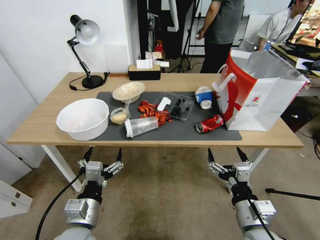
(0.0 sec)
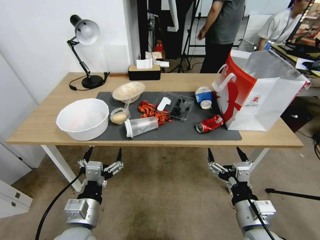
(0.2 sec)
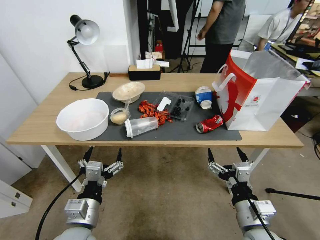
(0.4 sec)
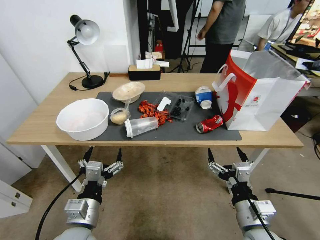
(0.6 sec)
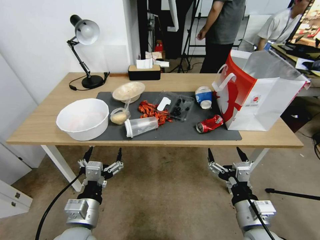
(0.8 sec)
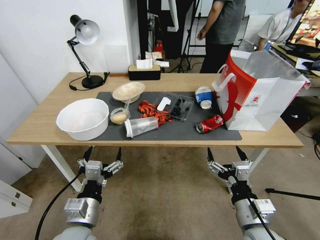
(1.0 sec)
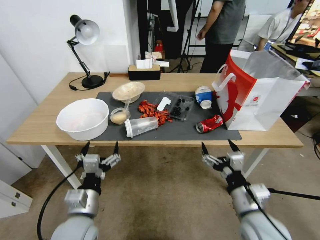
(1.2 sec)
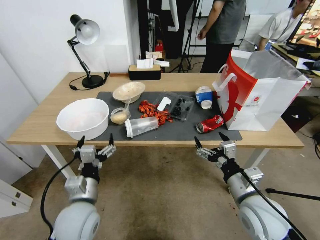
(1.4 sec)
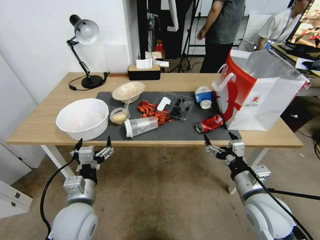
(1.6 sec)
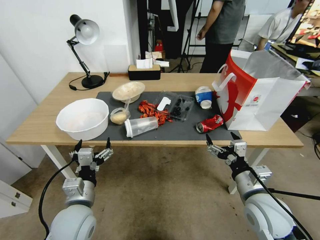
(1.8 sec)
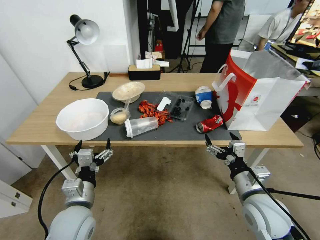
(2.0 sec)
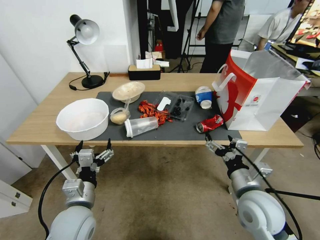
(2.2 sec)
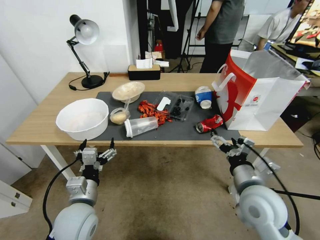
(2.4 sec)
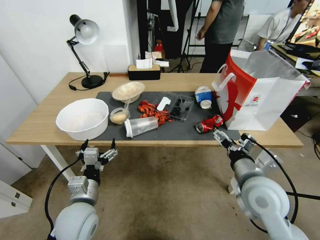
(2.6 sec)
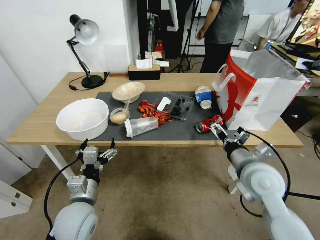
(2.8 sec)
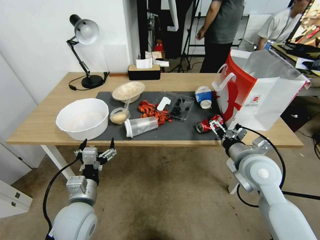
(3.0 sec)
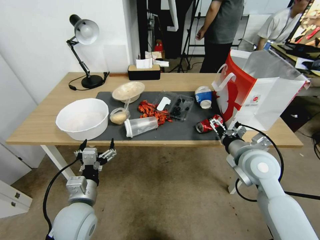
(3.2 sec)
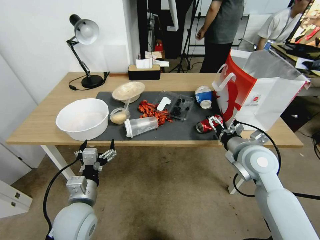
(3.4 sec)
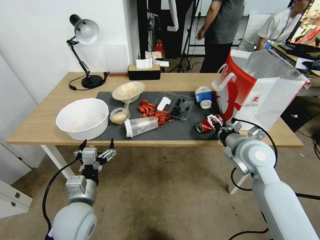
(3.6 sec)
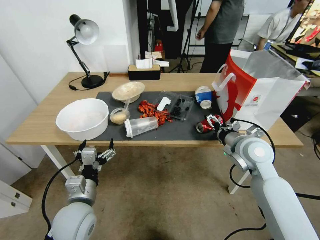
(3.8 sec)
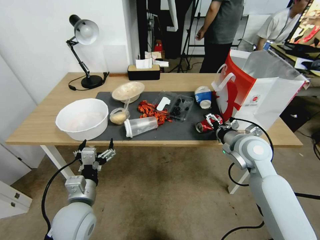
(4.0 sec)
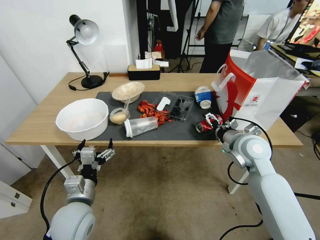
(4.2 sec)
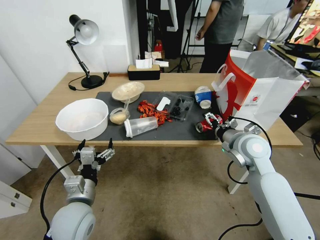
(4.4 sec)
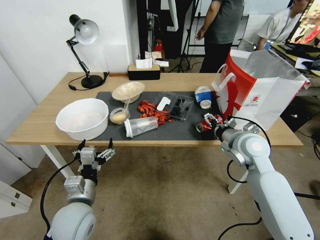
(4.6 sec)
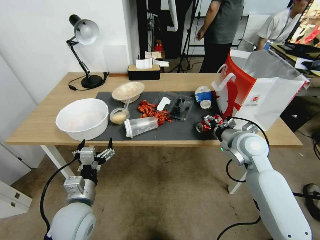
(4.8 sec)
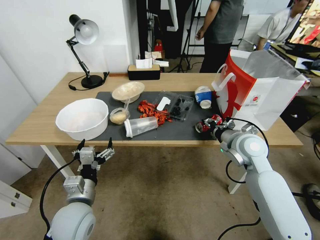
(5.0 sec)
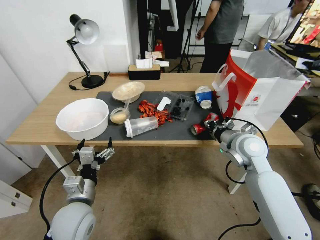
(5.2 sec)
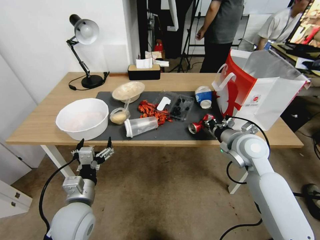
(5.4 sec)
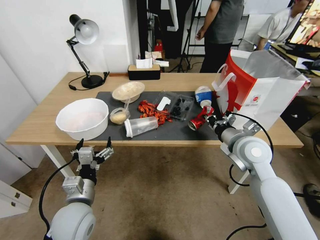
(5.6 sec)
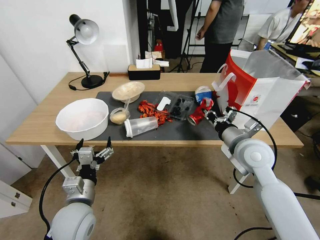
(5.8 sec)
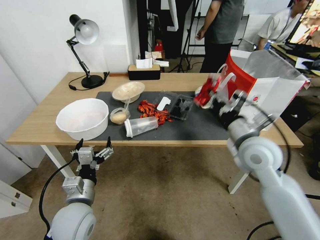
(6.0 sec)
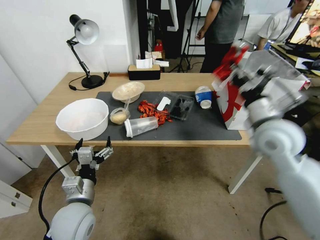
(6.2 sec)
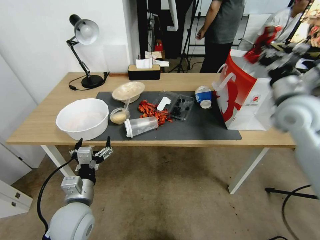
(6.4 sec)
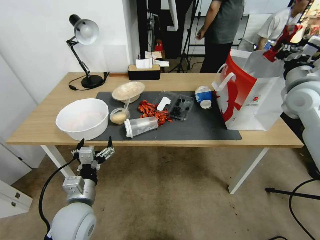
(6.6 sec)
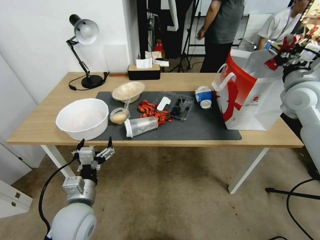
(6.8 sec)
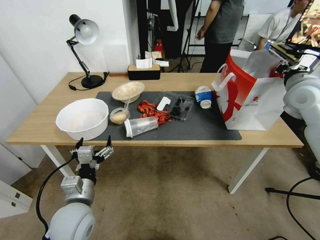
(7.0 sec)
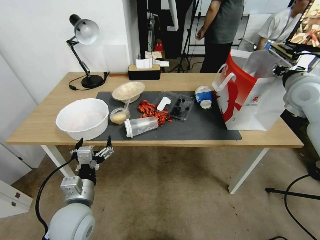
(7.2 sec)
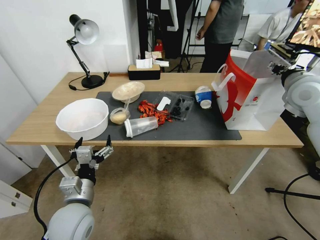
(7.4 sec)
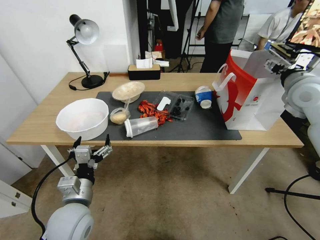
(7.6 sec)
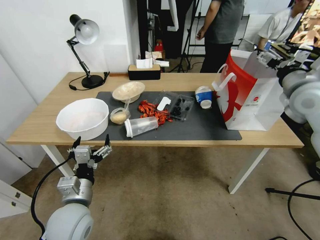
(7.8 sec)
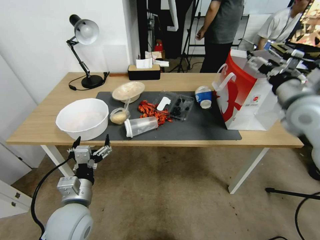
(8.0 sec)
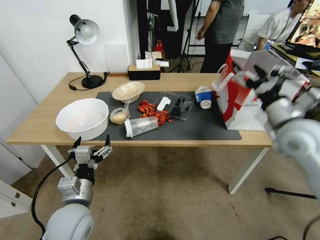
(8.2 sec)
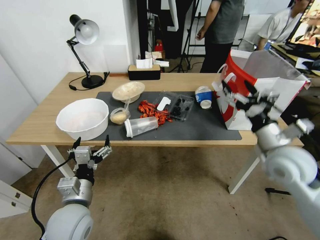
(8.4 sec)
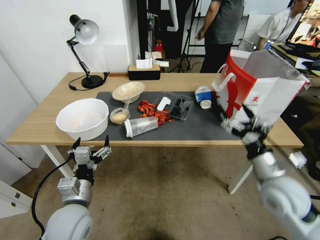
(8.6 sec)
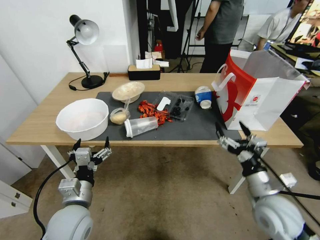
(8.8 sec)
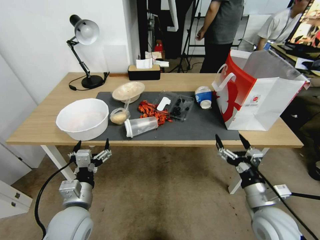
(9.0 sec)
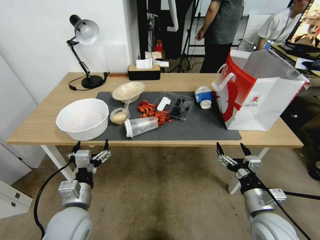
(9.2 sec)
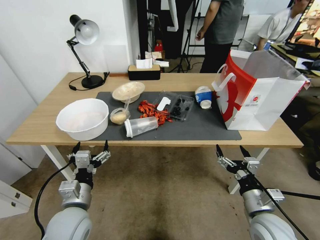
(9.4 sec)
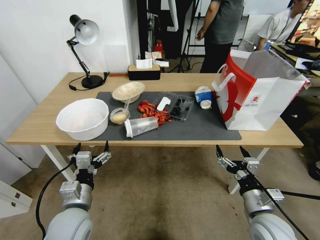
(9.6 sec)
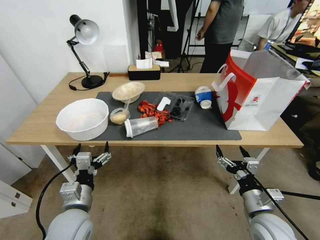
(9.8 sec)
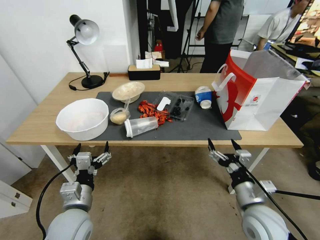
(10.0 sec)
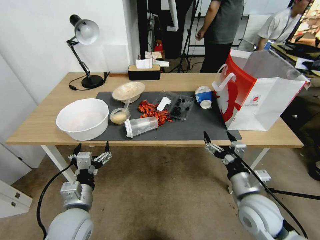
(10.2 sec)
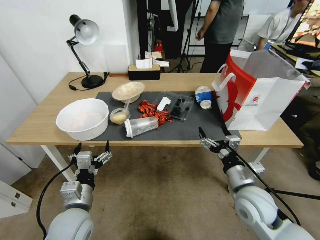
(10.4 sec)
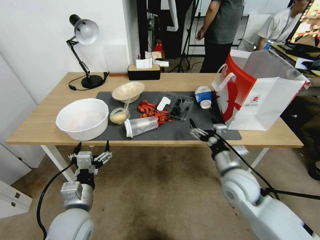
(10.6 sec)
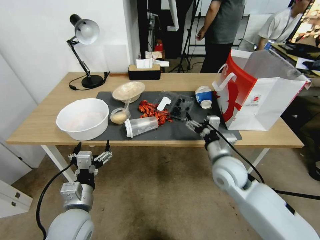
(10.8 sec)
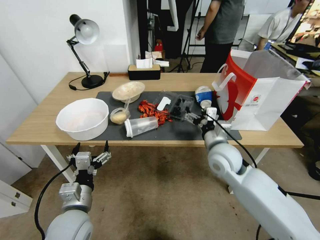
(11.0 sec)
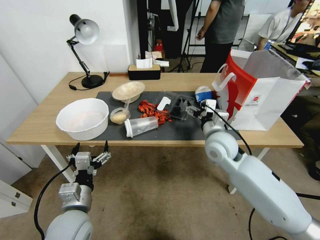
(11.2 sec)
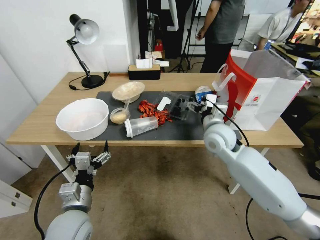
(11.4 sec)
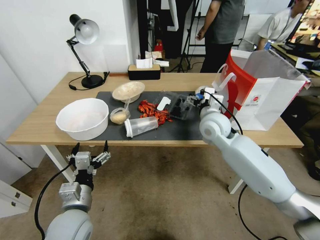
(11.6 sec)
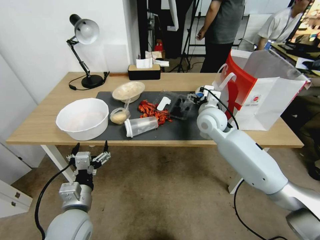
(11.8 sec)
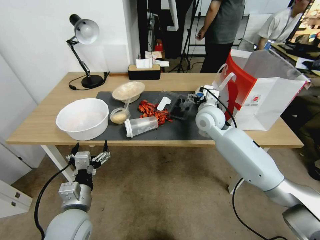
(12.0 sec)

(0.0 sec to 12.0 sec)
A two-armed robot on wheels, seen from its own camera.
1.6 sec - 3.0 sec: The right gripper moves forward and upward, about 10 cm.
3.0 sec - 4.4 sec: The right gripper shifts about 5 cm forward.
4.4 sec - 6.0 sec: The right gripper shifts by roughly 5 cm, and closes its fingers.
6.0 sec - 7.6 sec: The right gripper is displaced to the right, upward and forward by approximately 20 cm, and opens.
7.6 sec - 9.0 sec: The right gripper heads downward and backward, covering roughly 35 cm.
9.0 sec - 10.4 sec: The right gripper heads forward, covering about 5 cm.
10.4 sec - 12.0 sec: The right gripper is displaced forward and upward by about 25 cm.

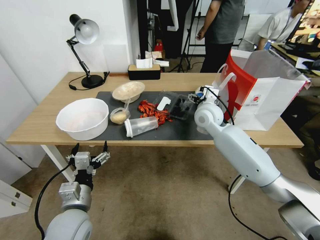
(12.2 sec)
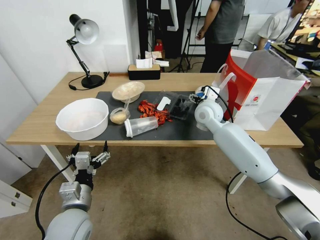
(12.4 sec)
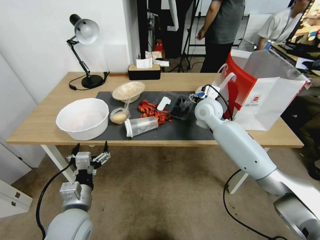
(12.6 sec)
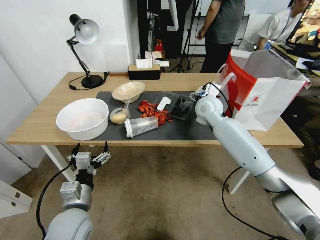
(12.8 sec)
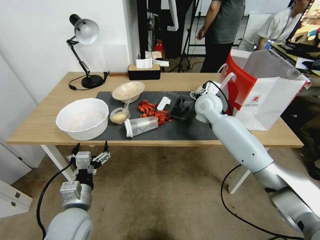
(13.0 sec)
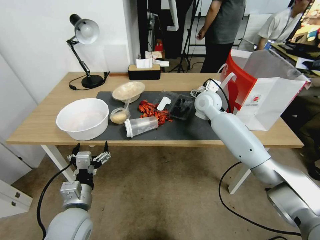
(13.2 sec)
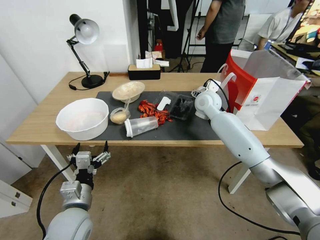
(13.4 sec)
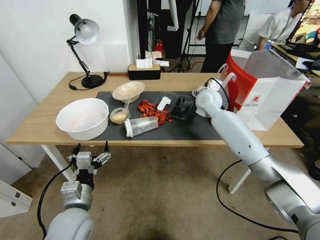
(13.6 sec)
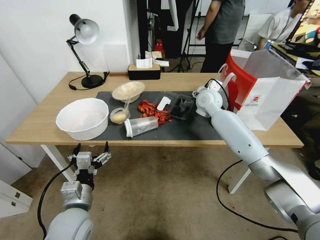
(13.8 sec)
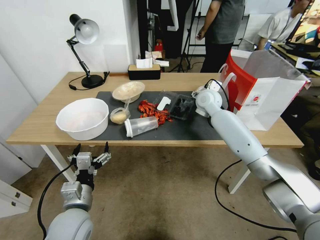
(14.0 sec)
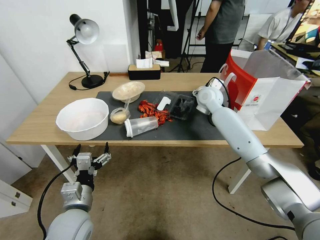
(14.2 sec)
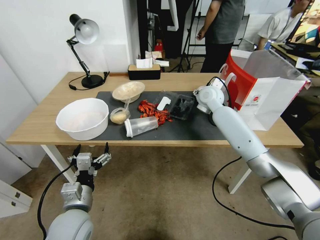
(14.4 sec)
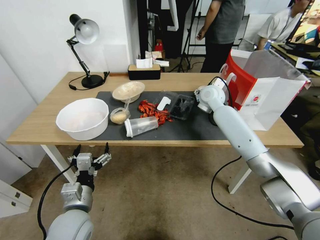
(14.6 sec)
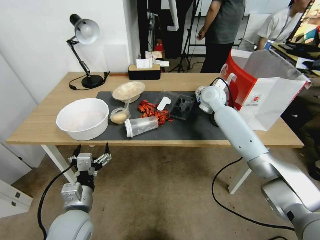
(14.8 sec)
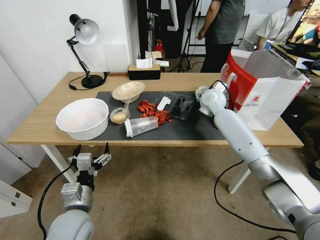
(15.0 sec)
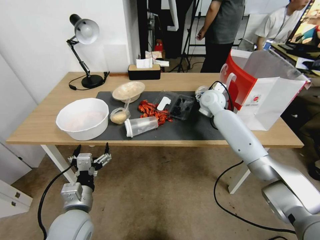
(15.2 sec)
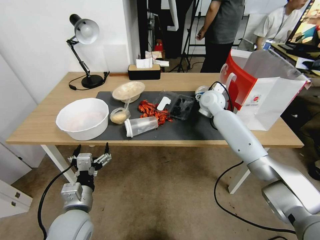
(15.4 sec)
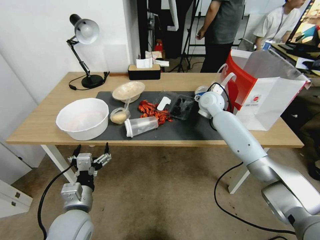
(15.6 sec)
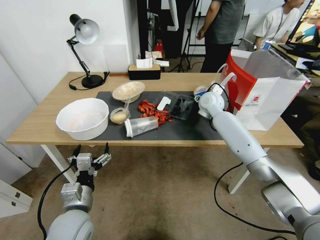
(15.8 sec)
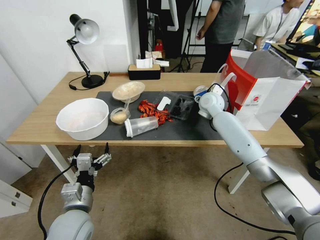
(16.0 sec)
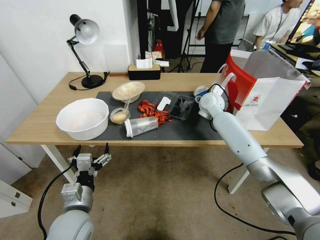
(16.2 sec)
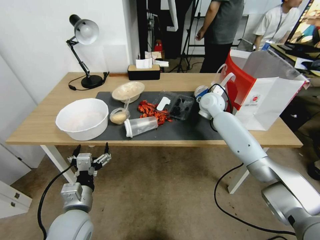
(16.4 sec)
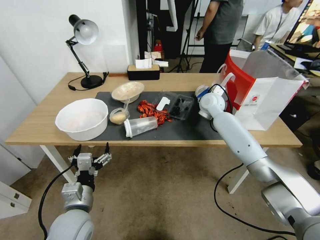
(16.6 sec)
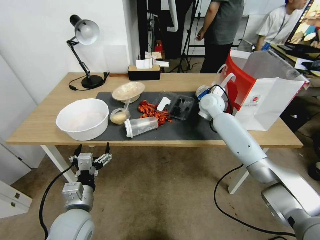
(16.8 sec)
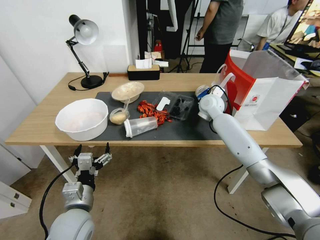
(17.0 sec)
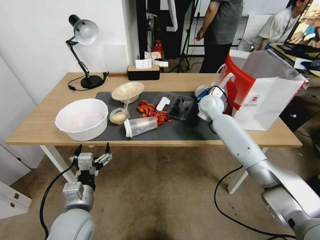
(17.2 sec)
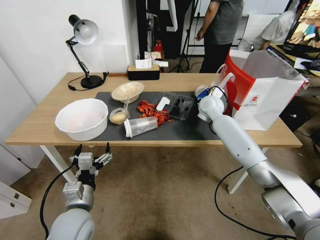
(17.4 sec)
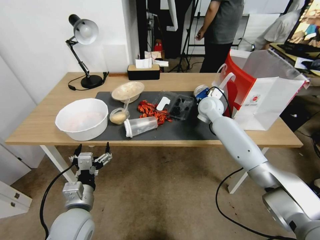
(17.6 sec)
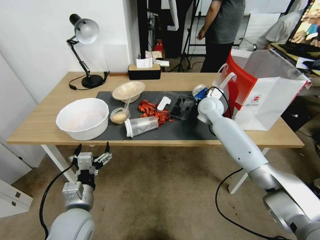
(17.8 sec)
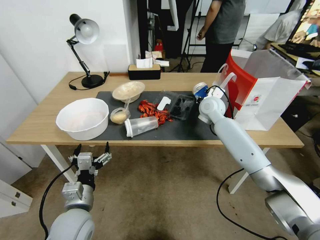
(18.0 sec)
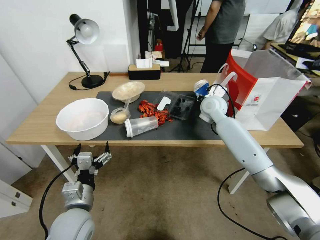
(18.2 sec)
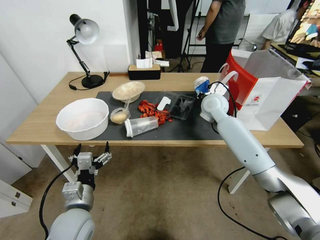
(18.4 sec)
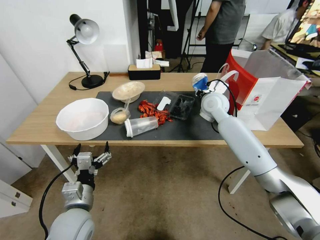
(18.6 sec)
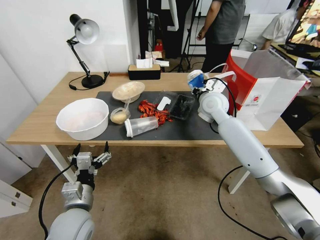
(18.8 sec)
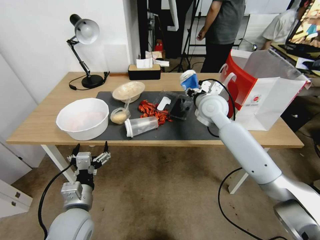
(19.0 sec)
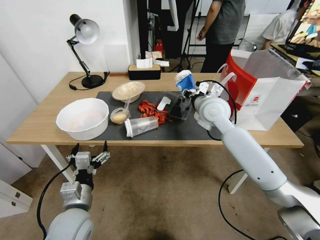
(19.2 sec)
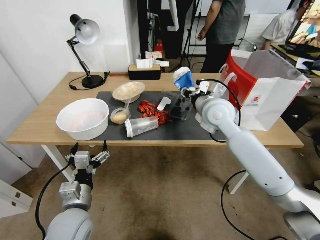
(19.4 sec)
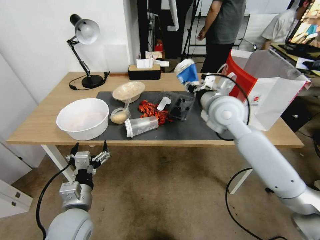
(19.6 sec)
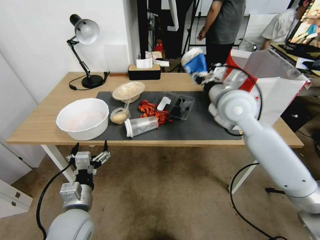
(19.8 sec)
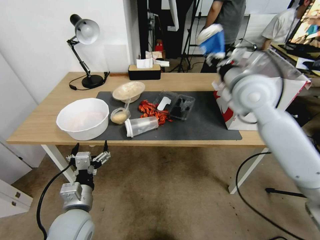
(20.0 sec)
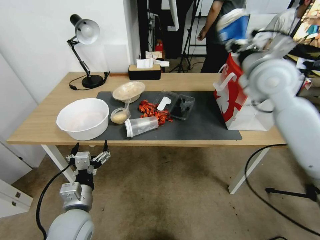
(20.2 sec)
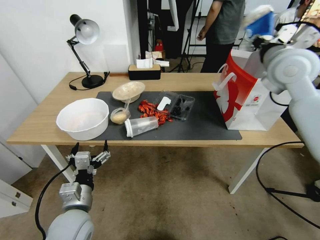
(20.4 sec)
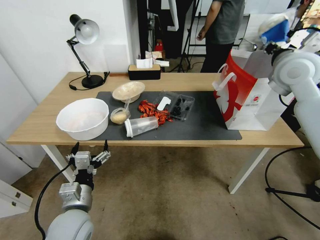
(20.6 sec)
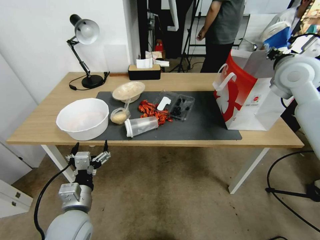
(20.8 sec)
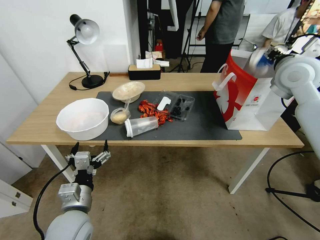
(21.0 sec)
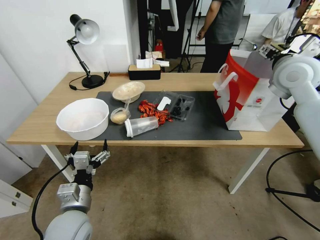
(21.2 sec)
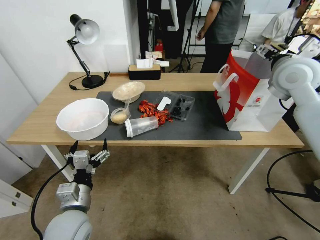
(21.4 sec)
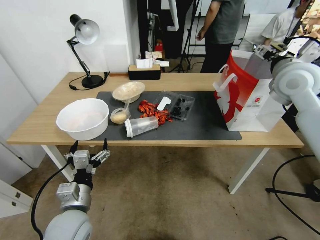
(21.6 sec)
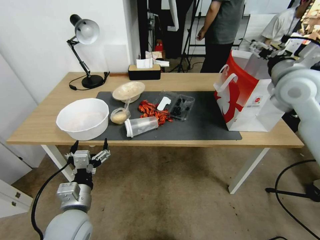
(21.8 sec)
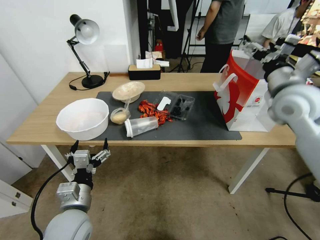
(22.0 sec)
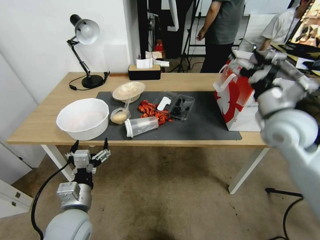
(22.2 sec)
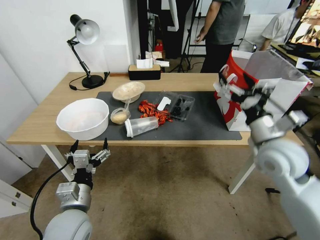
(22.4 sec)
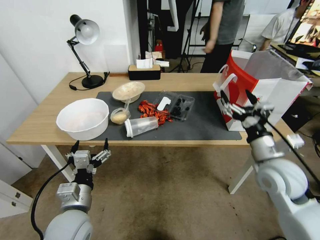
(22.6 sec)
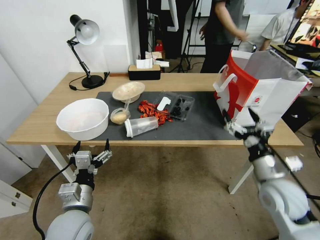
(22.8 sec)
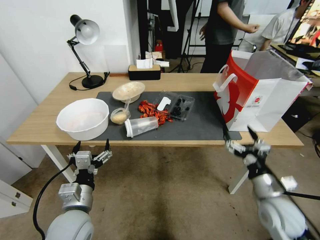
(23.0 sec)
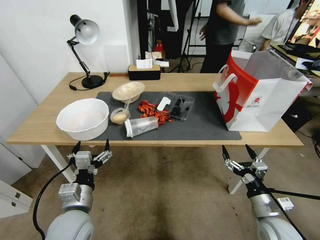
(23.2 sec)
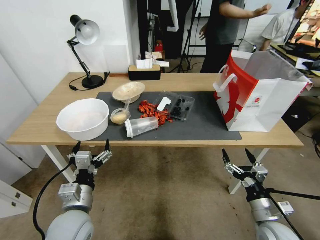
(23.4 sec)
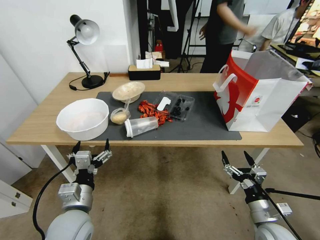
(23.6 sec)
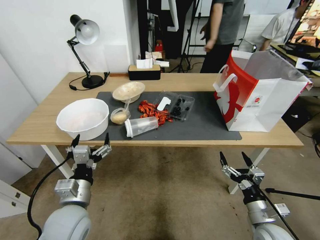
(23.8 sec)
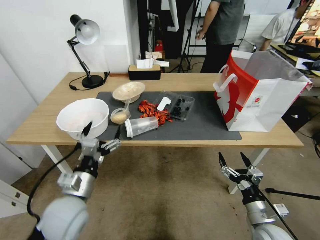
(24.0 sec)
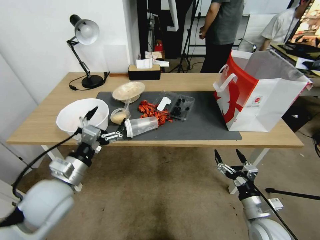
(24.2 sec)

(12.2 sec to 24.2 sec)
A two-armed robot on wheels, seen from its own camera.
12.2 sec - 13.8 sec: The right gripper heads forward, covering about 5 cm.
13.8 sec - 15.2 sec: The grippers move only a little.
15.2 sec - 16.6 sec: The right gripper closes up.
16.6 sec - 18.2 sec: The grippers make only small movements.
18.2 sec - 19.8 sec: The right gripper heads backward and upward, covering about 15 cm.
19.8 sec - 21.2 sec: The right gripper is displaced to the right and upward by some 15 cm, and opens its fingers.
21.2 sec - 22.6 sec: The right gripper moves downward and backward, some 25 cm.
22.6 sec - 24.2 sec: The right gripper moves downward and backward, roughly 20 cm; the left gripper is displaced upward and forward by roughly 10 cm.
